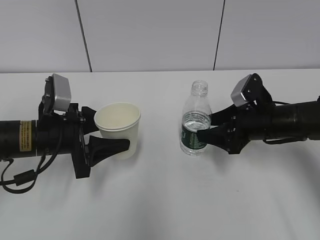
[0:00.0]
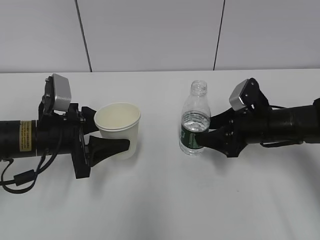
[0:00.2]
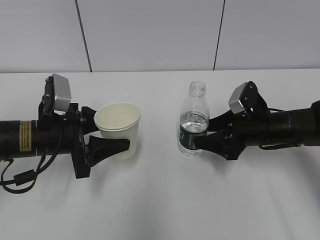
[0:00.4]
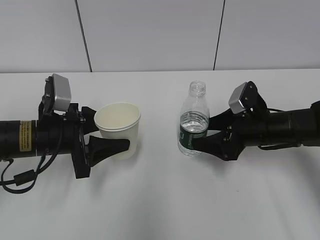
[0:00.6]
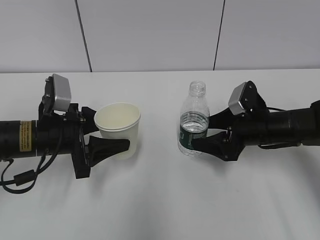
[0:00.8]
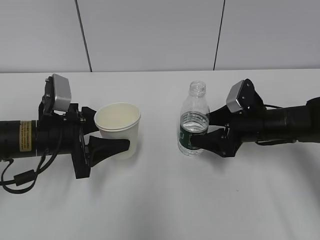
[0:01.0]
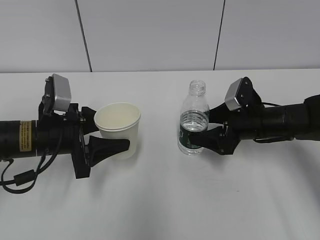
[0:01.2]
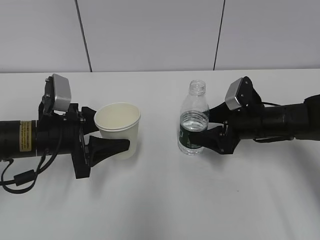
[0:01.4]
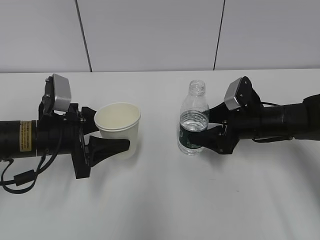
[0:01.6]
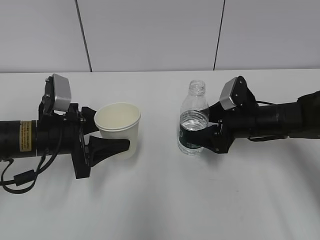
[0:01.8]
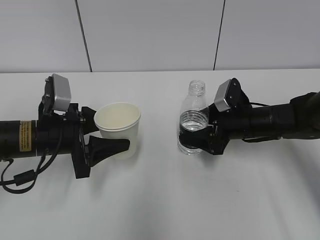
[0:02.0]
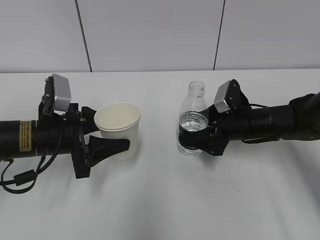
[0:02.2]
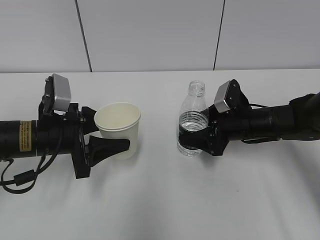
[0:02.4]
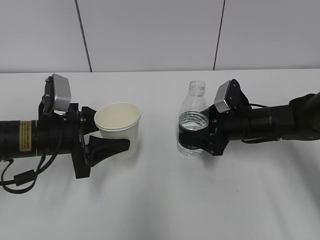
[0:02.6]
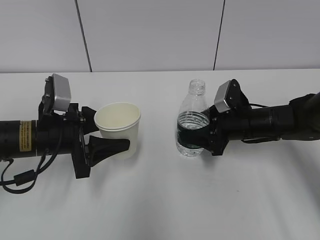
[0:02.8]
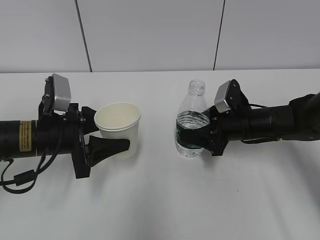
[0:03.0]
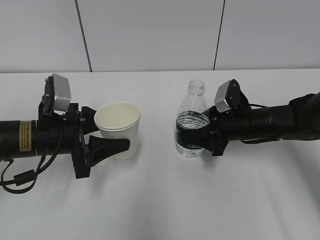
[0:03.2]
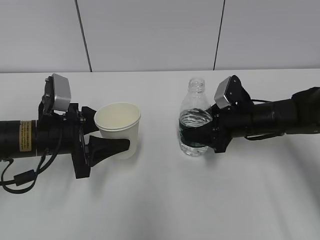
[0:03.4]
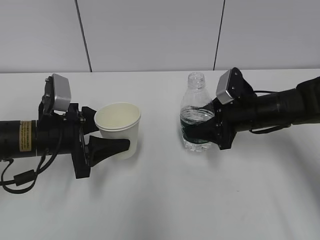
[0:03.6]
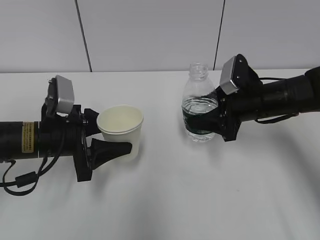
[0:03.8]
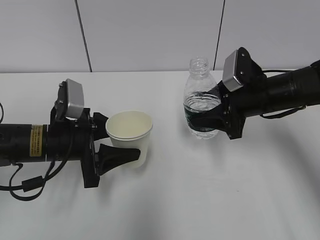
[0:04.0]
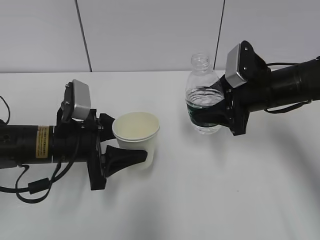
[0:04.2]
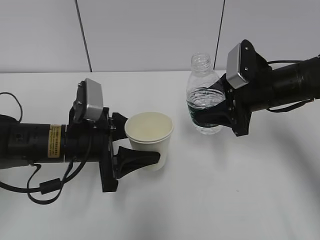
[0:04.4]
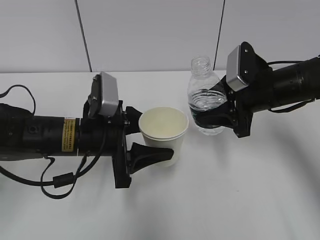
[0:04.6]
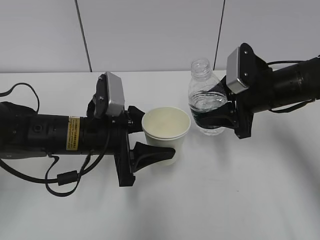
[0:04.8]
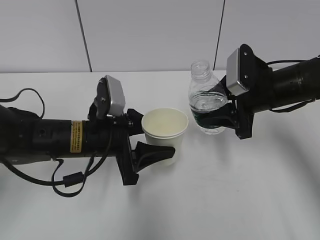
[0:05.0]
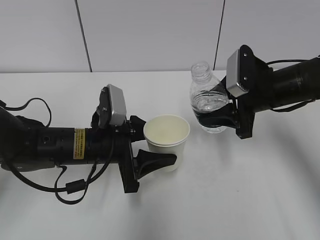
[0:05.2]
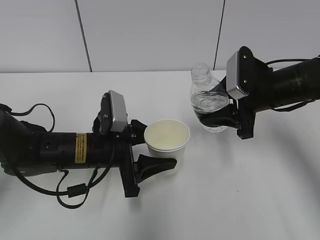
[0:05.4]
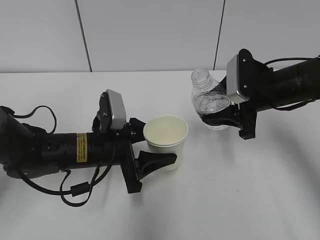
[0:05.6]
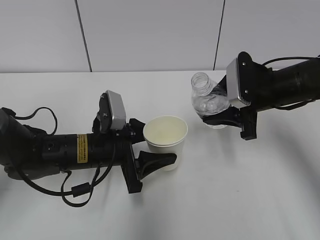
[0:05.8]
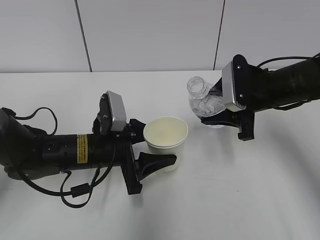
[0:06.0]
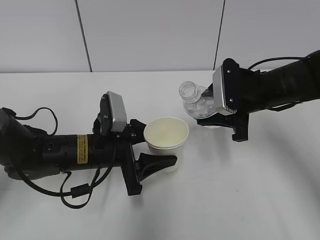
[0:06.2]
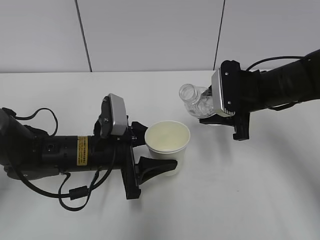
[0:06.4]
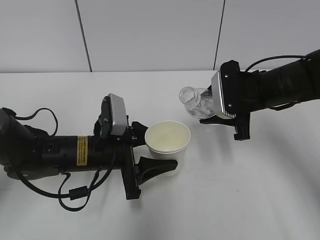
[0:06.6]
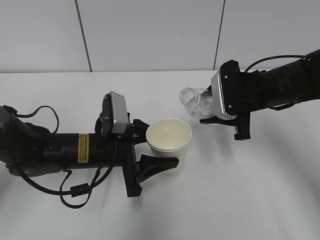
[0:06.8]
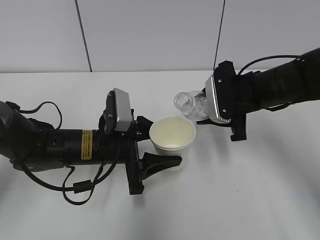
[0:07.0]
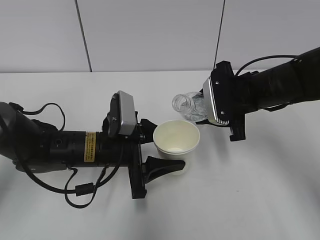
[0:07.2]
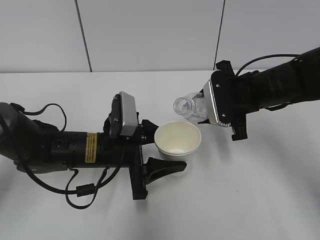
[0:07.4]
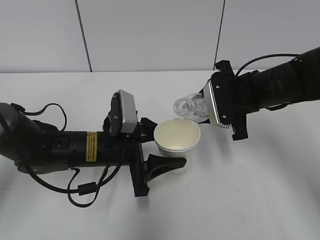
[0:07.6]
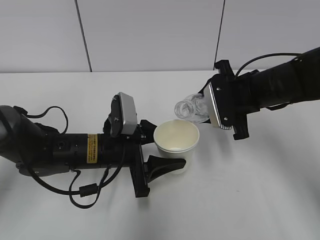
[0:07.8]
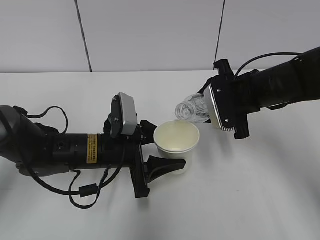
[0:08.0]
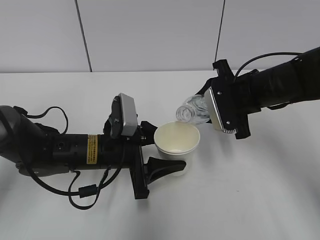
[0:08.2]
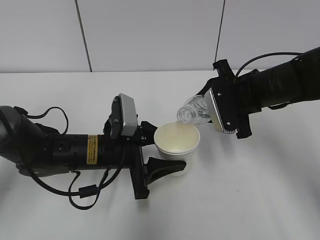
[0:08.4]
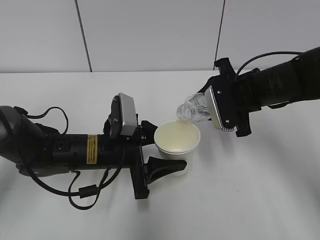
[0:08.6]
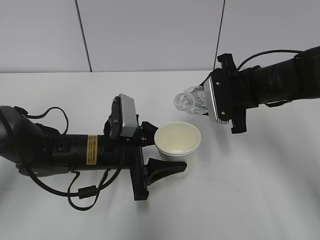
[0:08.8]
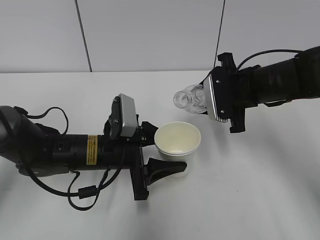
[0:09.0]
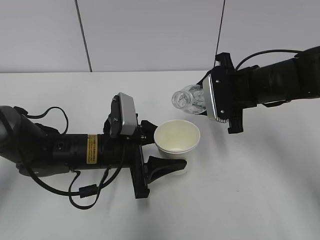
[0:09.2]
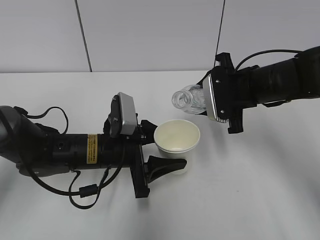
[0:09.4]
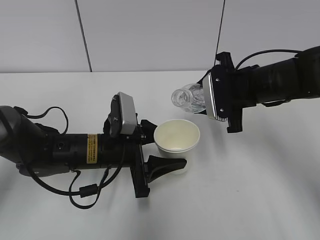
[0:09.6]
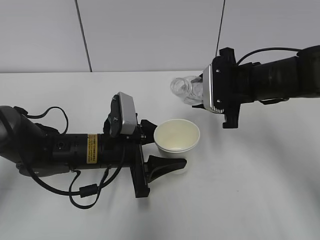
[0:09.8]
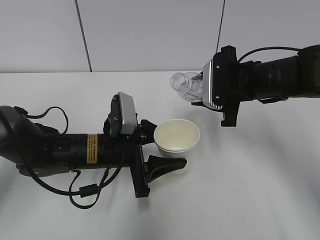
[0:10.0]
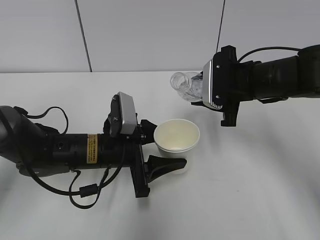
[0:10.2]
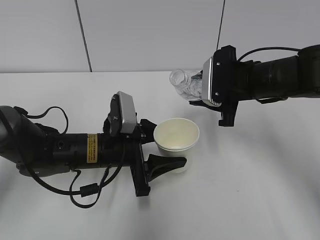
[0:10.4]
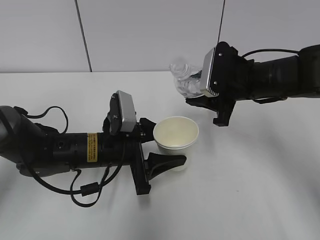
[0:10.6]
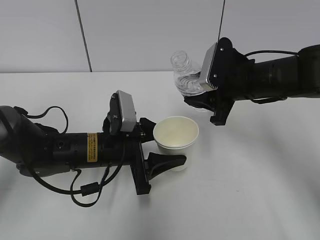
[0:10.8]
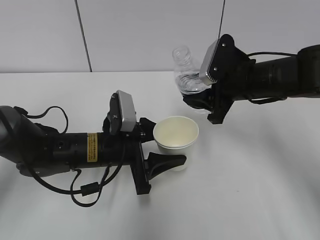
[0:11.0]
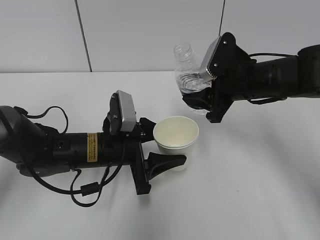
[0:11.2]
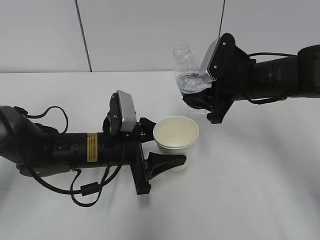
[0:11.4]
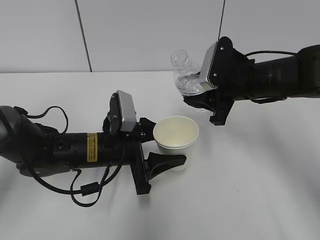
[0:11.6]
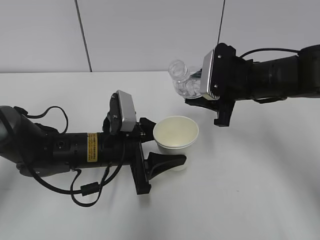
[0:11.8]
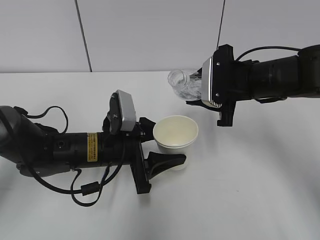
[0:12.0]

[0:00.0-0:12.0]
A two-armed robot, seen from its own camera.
0:00.0 to 0:01.6: The right gripper opens.
0:01.6 to 0:03.0: The right gripper closes.
0:03.0 to 0:04.4: The right gripper travels upward by about 10 cm. The left gripper goes some 5 cm to the right.
0:06.0 to 0:07.6: There are only small adjustments of the grippers.
0:07.6 to 0:10.4: The grippers stay close to where they were, moving slightly.

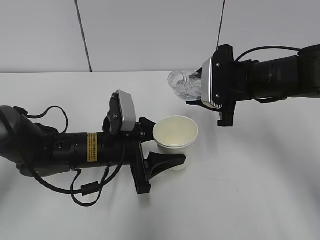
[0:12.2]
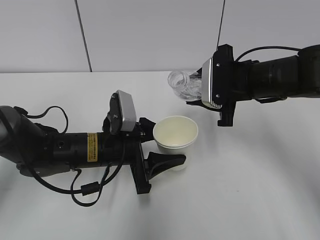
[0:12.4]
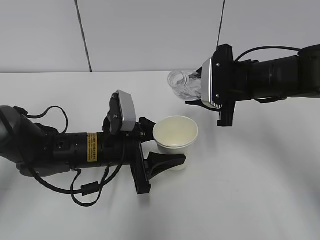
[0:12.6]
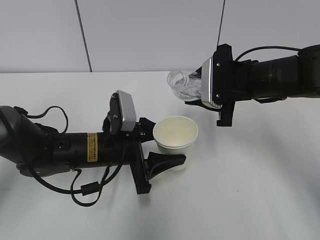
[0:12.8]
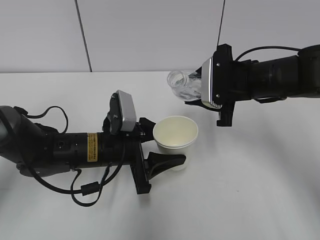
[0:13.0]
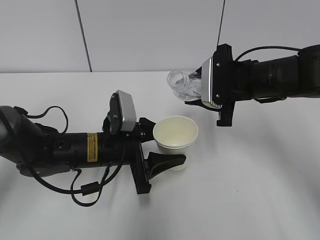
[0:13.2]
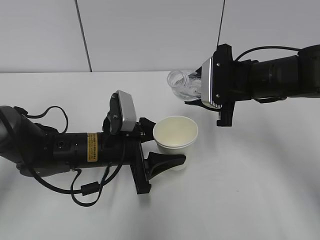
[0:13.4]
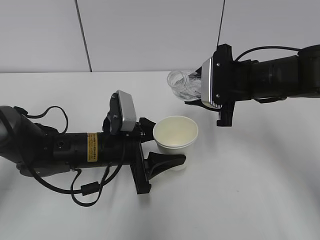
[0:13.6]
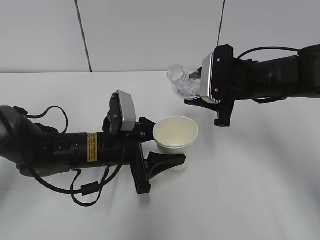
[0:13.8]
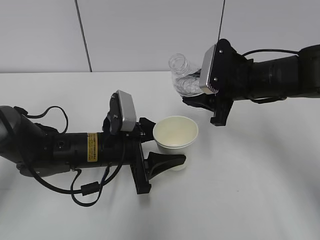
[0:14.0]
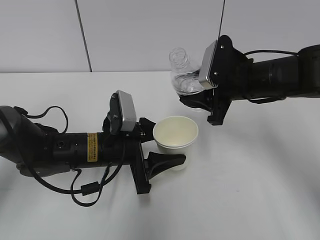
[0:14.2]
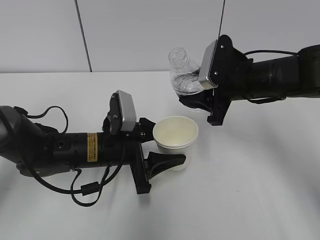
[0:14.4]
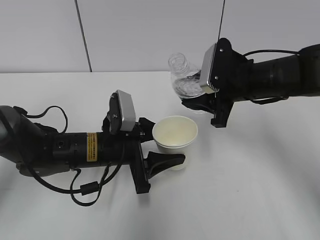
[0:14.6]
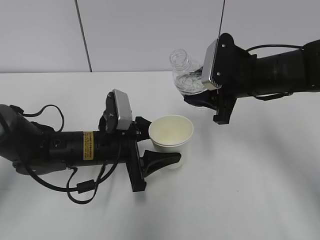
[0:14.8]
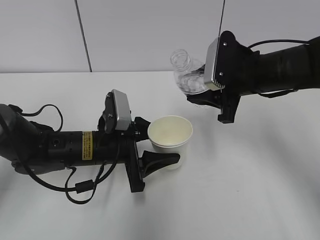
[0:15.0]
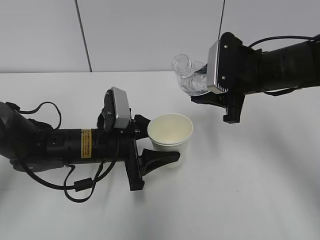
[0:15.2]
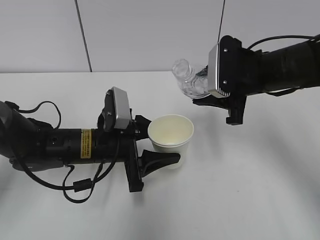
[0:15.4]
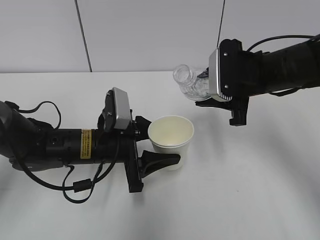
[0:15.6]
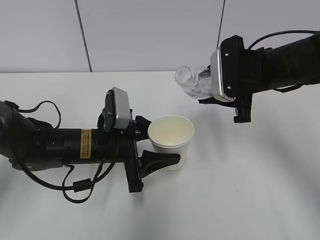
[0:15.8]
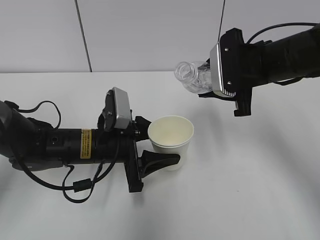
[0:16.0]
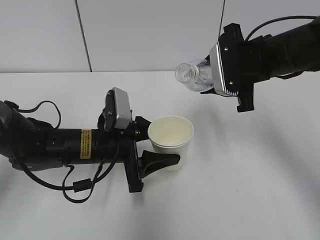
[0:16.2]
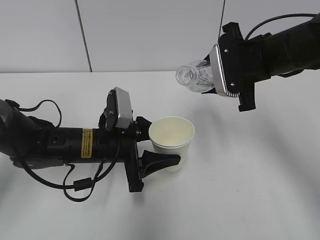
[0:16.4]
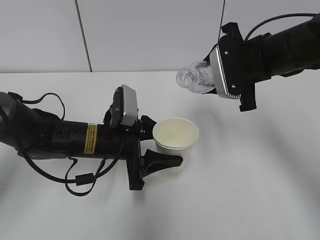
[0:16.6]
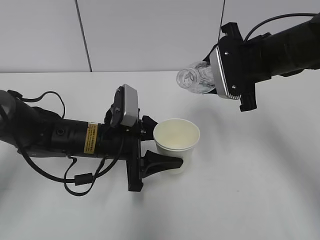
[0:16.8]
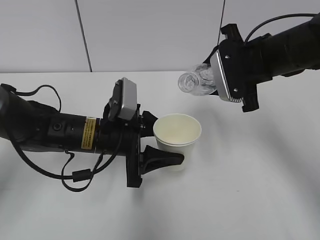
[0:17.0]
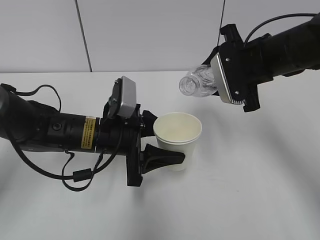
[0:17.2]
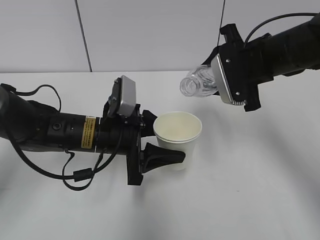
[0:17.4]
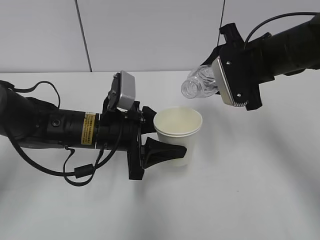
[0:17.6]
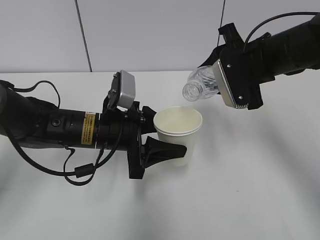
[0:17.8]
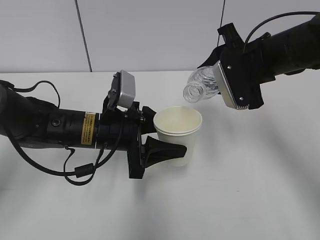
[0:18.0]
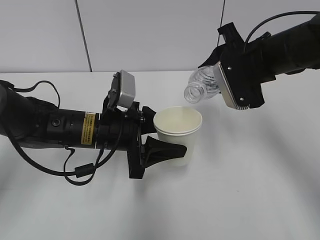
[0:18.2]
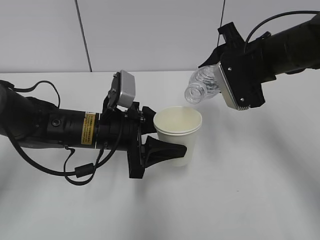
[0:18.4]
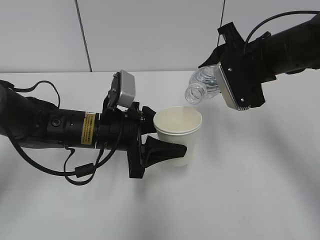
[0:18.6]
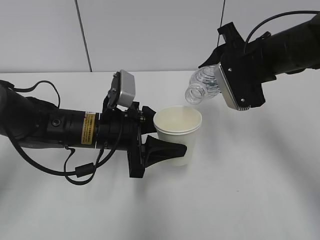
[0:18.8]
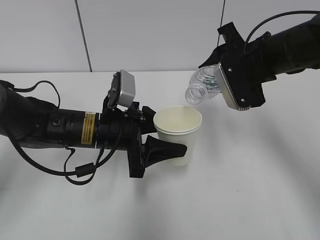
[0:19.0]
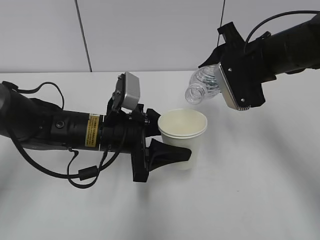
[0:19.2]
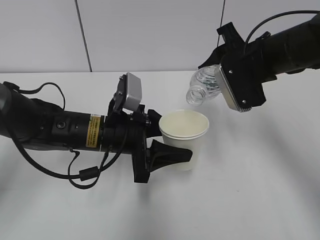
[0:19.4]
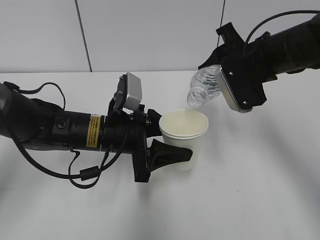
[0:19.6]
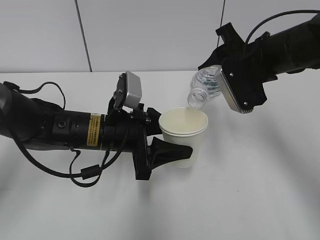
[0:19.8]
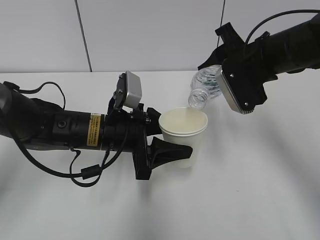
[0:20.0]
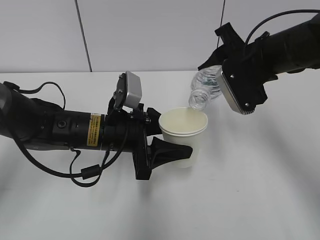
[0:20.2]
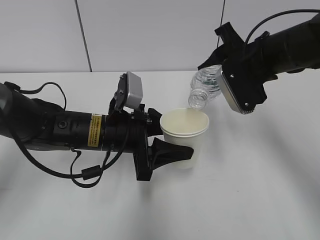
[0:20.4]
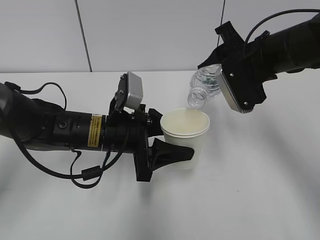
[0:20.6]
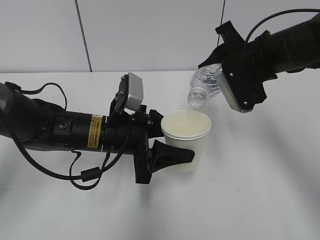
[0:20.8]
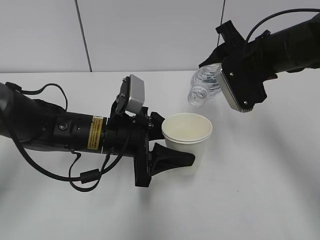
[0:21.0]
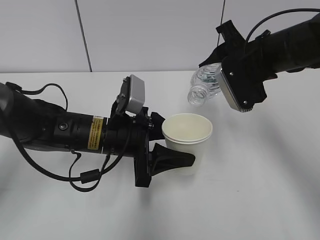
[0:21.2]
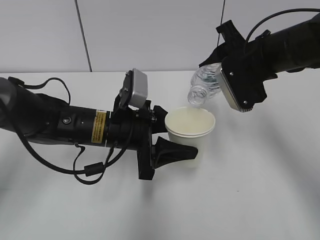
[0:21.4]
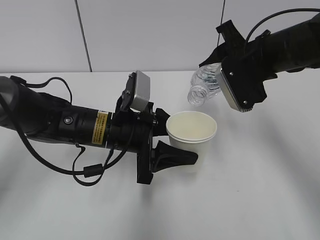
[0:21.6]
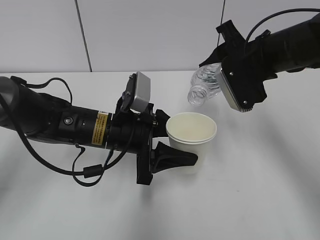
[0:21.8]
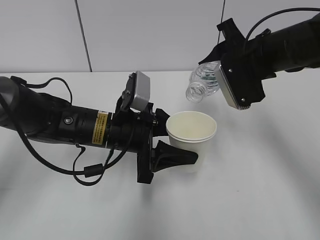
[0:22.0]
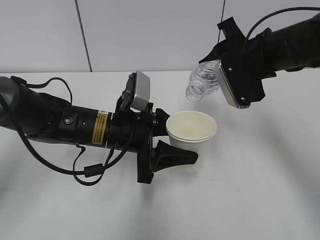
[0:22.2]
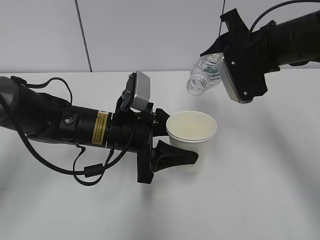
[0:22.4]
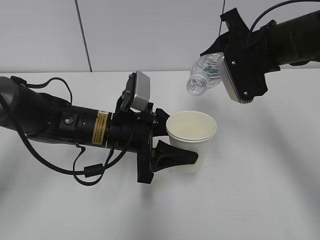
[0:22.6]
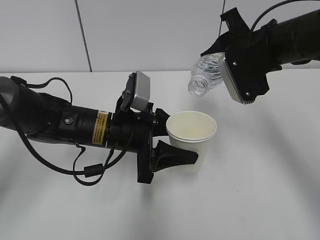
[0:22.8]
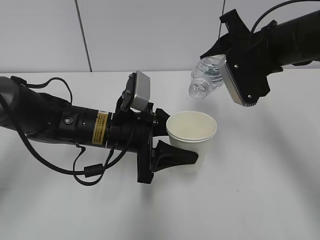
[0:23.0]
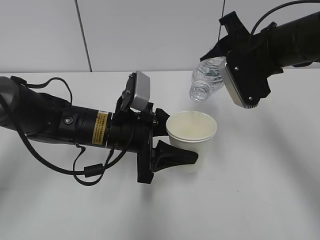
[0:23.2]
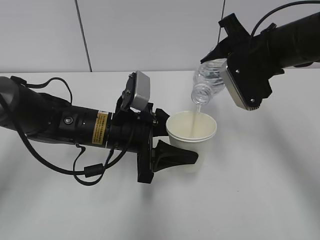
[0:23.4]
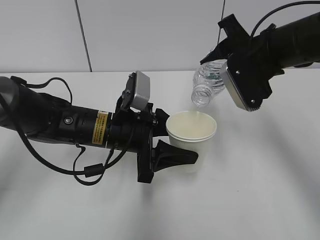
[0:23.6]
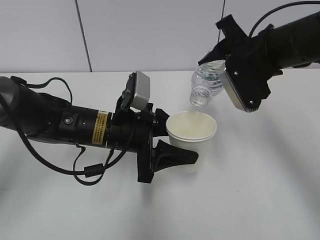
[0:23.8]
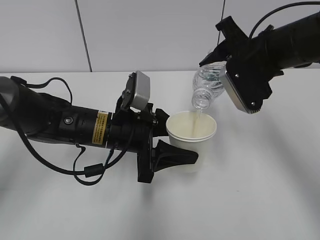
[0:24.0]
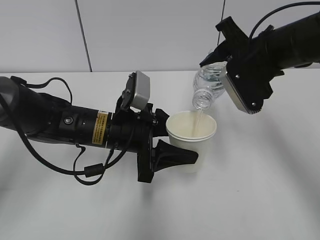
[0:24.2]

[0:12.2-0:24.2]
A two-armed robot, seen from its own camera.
Step, 0:12.2 to 0:16.0: Lift the paper cup with the left hand.
Step, 0:16.2 to 0:22.6: Fill water with the left hand.
Step, 0:16.2 to 0:22.6: Pour water with the right hand.
0:12.2 to 0:13.8: There are only small adjustments of the grippers.
0:13.8 to 0:15.2: There are only small adjustments of the grippers.
0:16.6 to 0:18.2: The grippers stay close to where they were, moving slightly.
0:18.2 to 0:19.8: The grippers make only small movements.
0:19.8 to 0:21.2: Both grippers stay put.
0:21.2 to 0:24.2: There are only small adjustments of the grippers.
